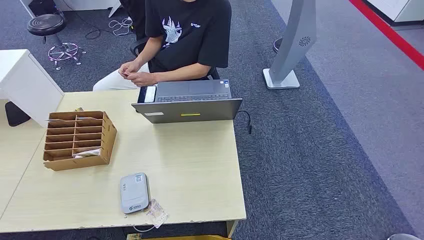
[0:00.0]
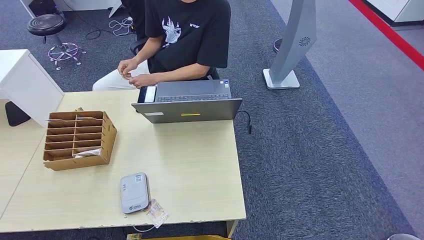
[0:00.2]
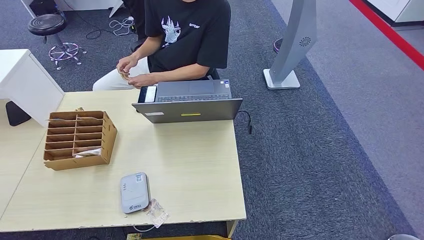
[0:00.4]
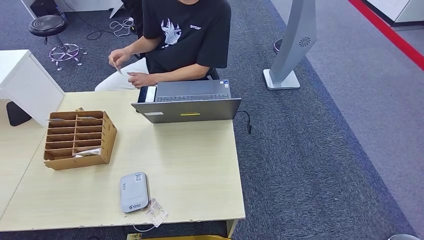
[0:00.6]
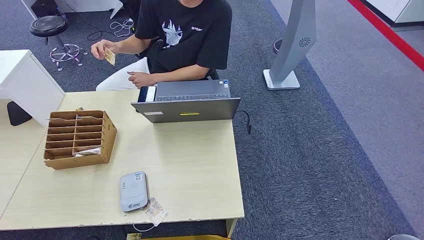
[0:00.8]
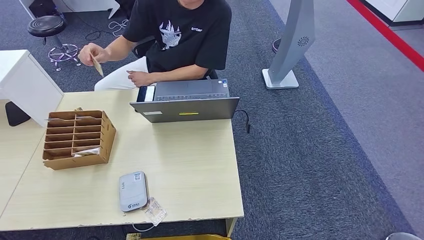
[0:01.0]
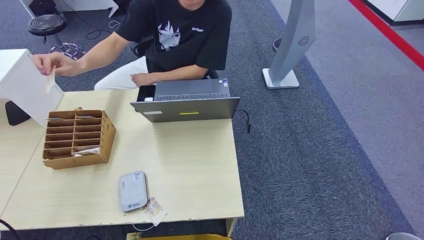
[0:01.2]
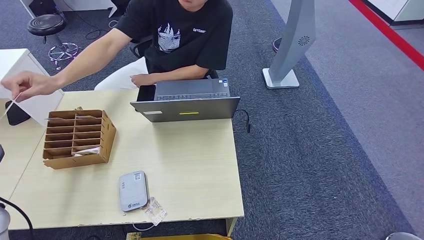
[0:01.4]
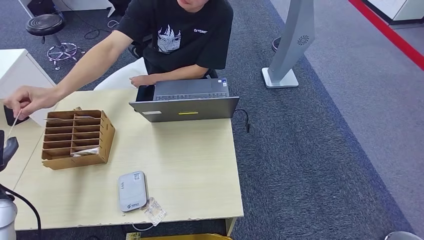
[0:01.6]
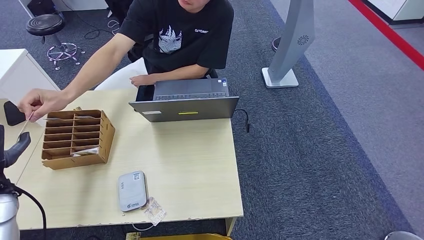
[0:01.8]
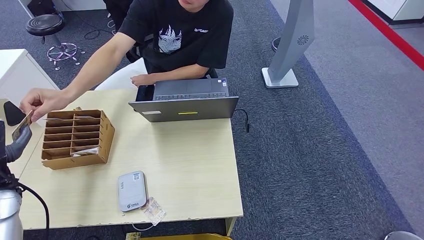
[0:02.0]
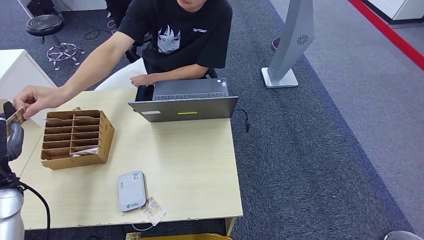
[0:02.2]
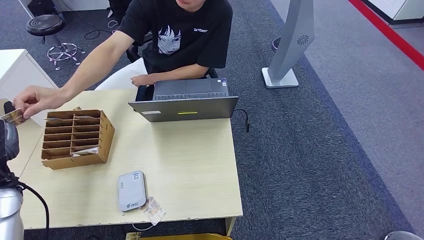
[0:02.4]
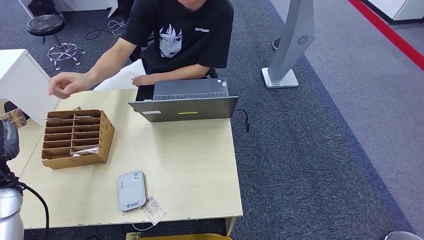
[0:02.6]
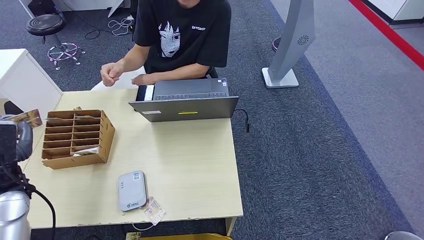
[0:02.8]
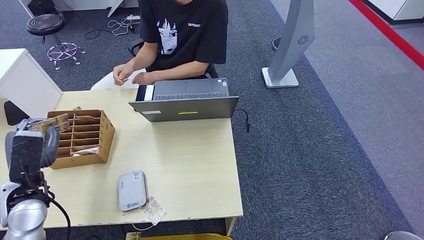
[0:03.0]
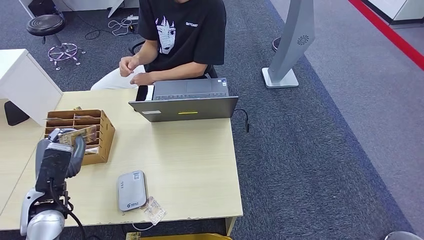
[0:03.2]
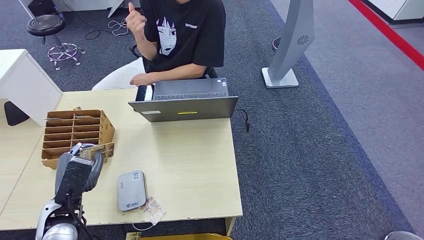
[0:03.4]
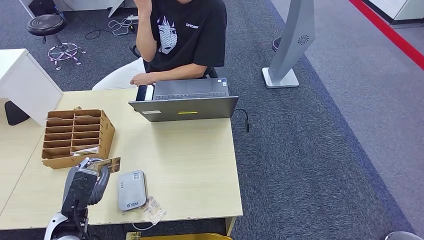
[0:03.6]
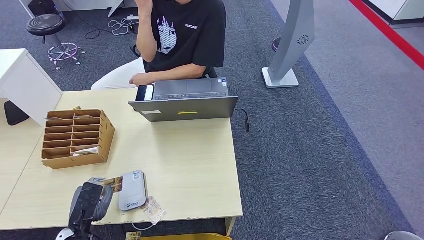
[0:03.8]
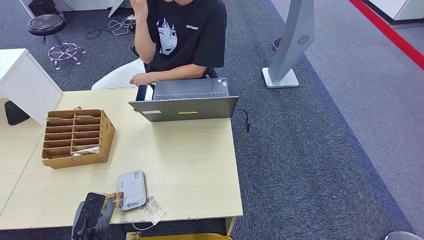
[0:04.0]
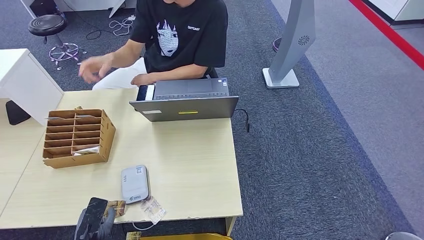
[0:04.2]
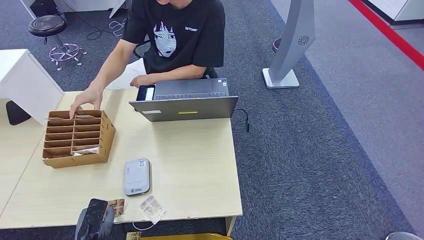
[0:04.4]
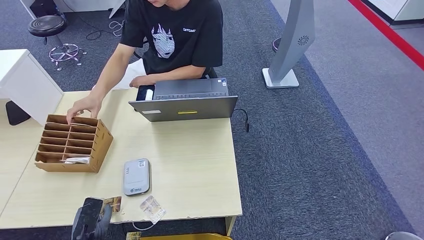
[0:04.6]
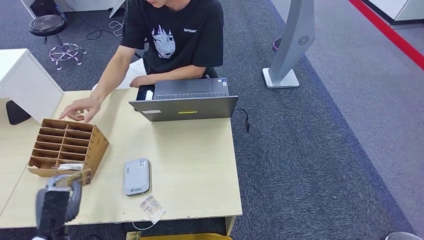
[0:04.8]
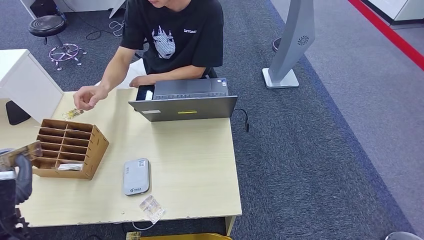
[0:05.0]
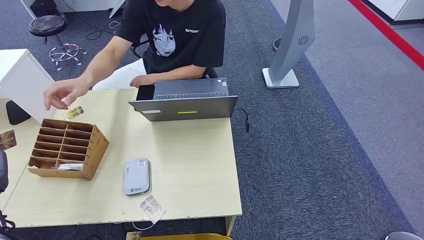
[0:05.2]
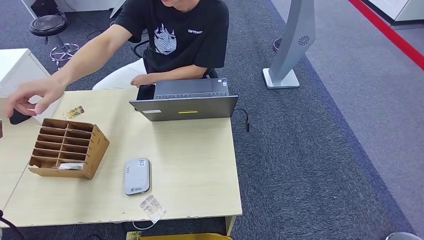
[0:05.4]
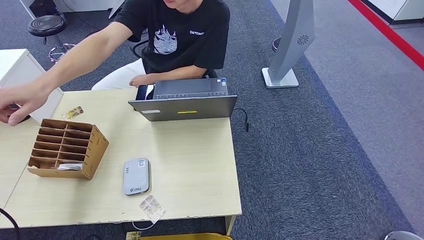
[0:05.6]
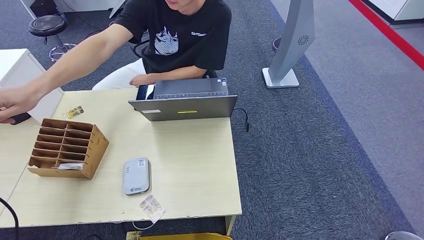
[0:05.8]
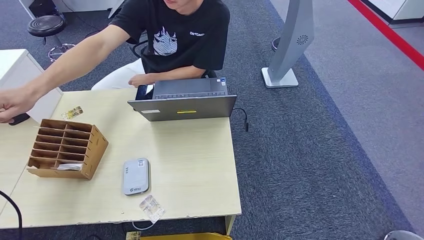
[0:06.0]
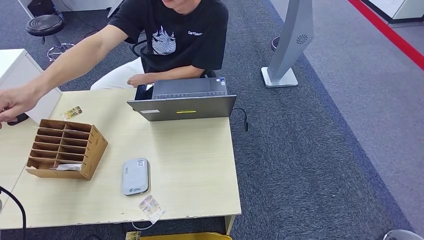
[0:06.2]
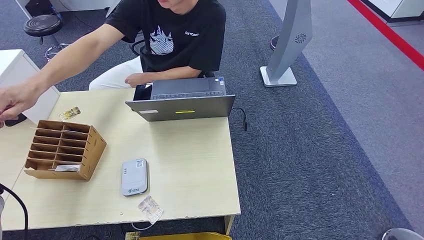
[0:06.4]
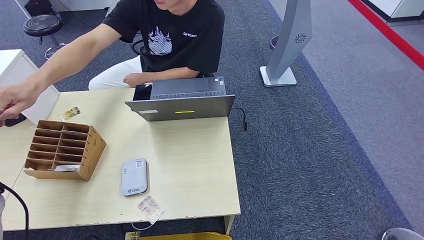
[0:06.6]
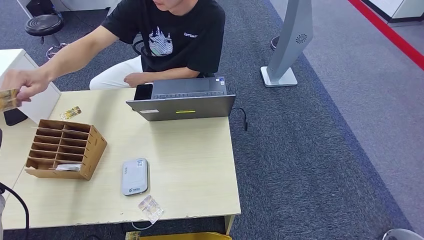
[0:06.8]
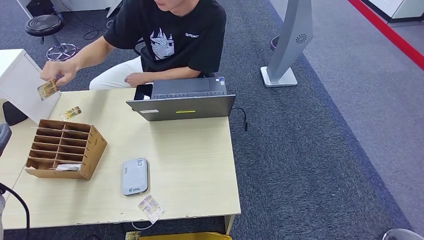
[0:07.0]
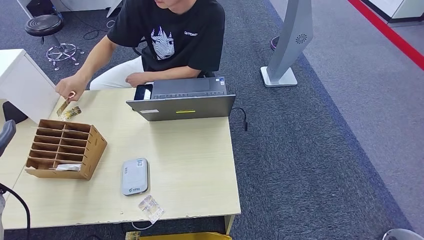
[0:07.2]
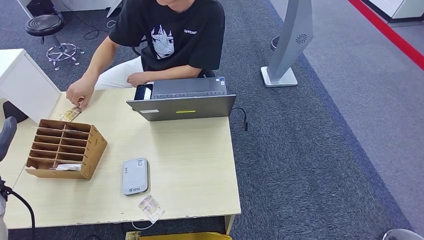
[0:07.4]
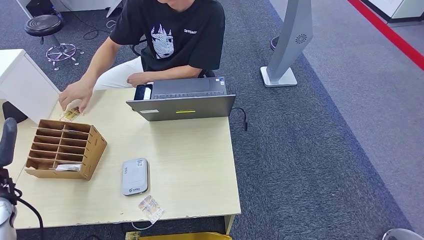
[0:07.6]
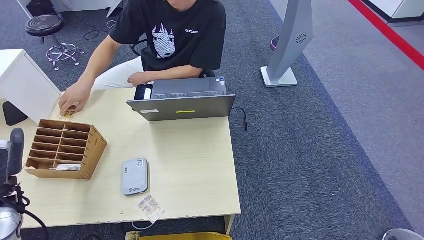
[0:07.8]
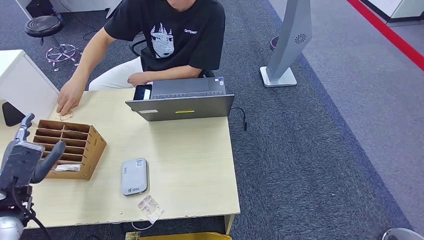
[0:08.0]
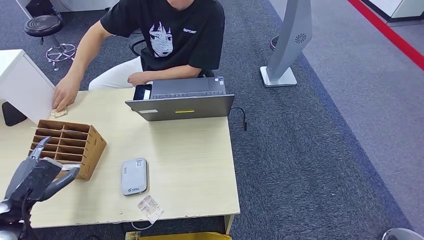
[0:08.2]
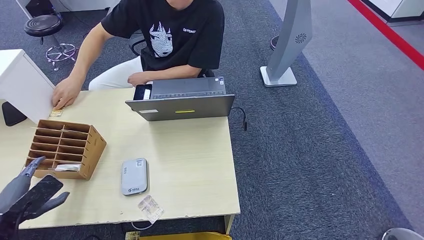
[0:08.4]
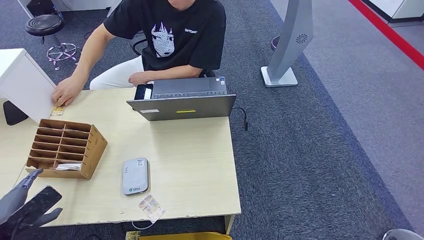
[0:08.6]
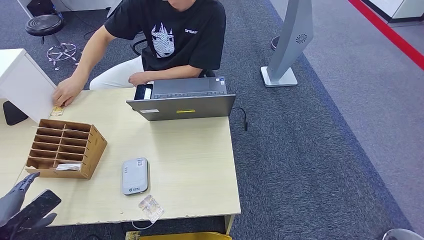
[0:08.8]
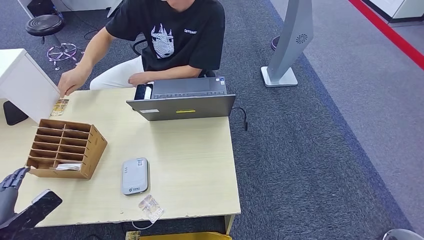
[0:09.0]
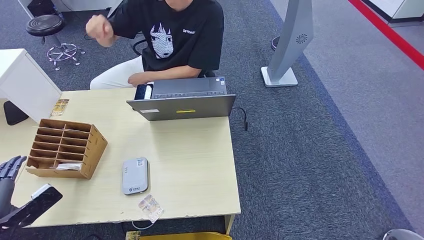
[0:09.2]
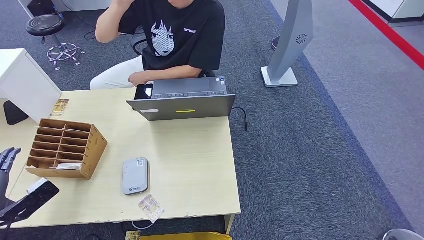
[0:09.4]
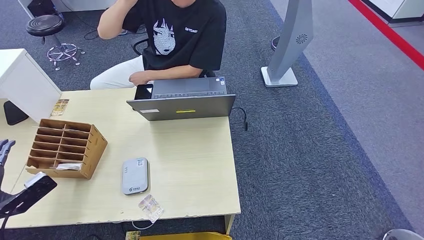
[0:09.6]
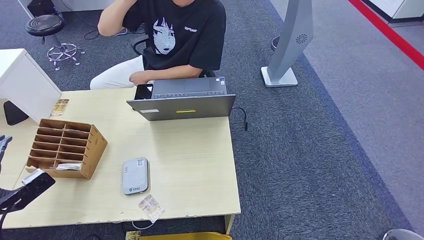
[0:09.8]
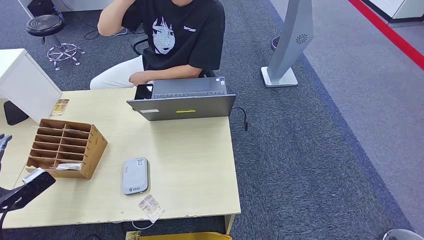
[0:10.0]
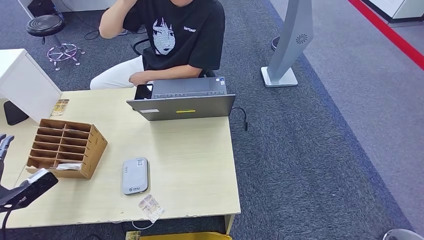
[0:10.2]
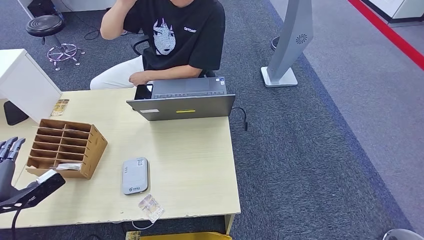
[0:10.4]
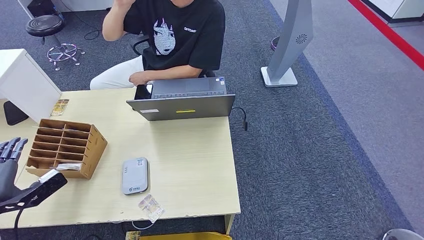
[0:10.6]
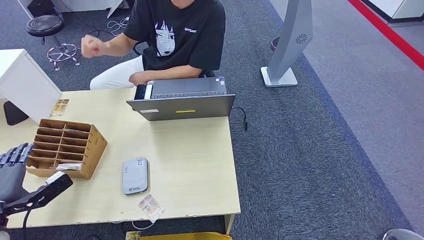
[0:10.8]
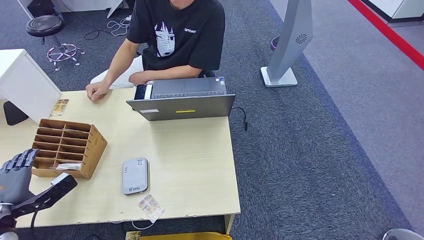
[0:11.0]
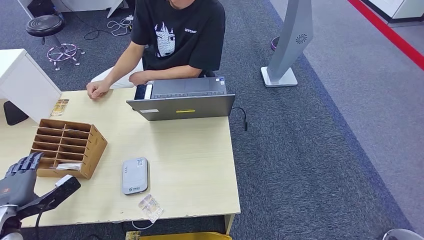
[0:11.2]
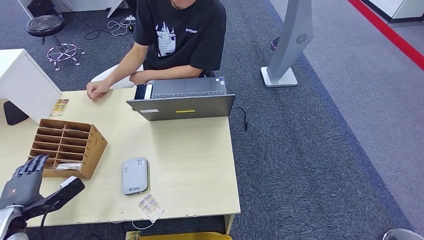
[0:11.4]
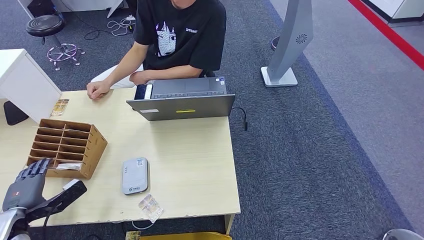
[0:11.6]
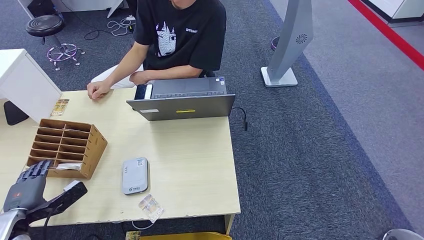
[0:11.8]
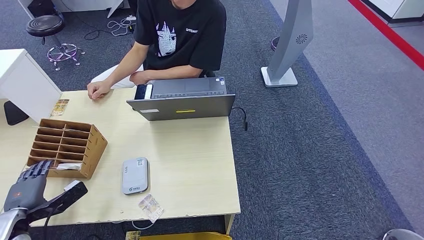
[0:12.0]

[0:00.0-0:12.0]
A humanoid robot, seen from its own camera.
Step, 0:00.0 to 0:02.8: Take the ID card from the person's hand.
Step, 0:03.0 to 0:03.8: Place the ID card on the card reader.
Step, 0:04.2 to 0:06.6: Hand the ID card to the person.
0:01.6 to 0:03.0: The left hand is displaced to the right by about 10 cm.
0:03.0 to 0:04.4: The left hand shifts about 20 cm downward and backward.
0:04.4 to 0:06.0: The left hand moves upward, to the left and forward, about 30 cm.
0:07.6 to 0:09.0: The left hand is displaced backward and downward by about 15 cm.
0:09.0 to 0:10.4: The left hand heads forward, covering roughly 5 cm.
0:10.4 to 0:12.0: The left hand goes roughly 10 cm downward.

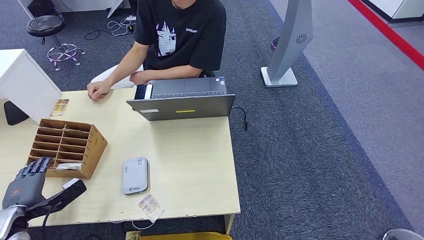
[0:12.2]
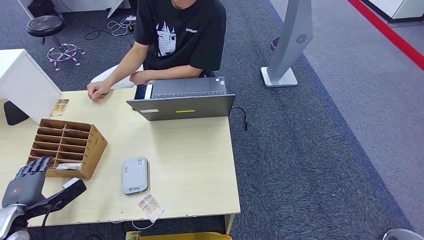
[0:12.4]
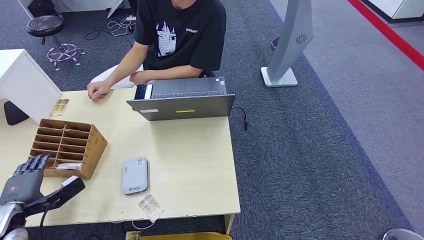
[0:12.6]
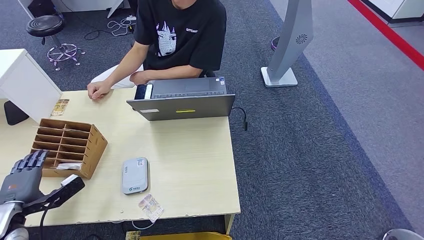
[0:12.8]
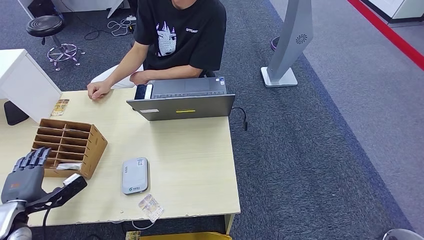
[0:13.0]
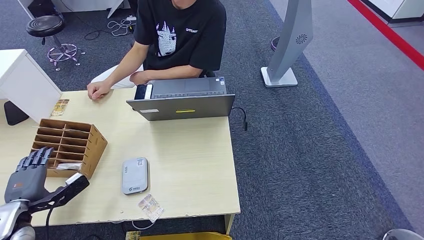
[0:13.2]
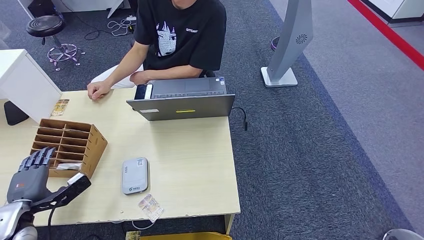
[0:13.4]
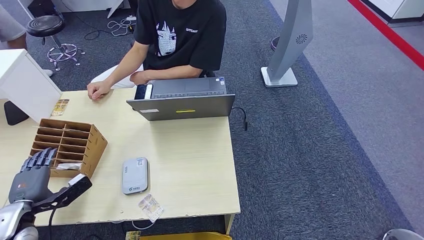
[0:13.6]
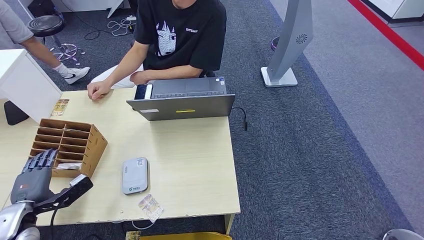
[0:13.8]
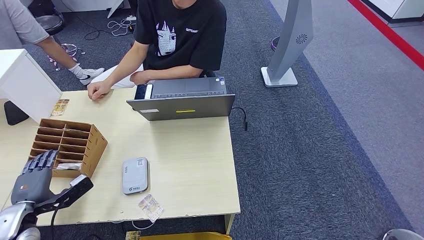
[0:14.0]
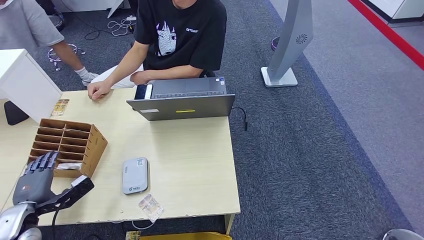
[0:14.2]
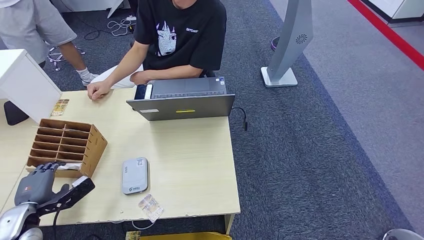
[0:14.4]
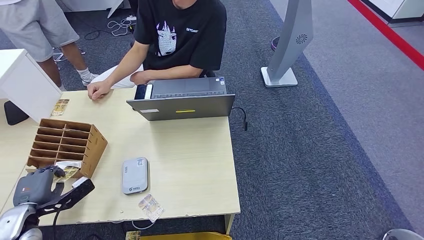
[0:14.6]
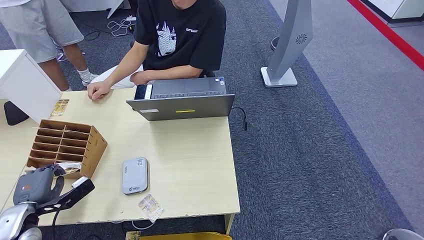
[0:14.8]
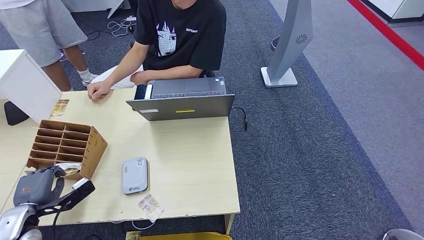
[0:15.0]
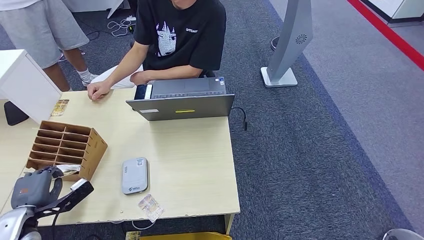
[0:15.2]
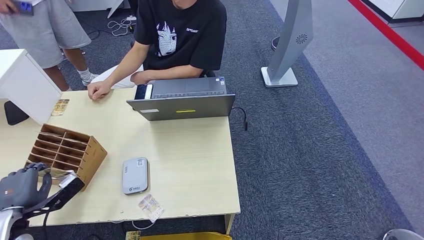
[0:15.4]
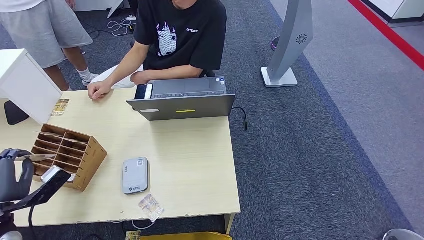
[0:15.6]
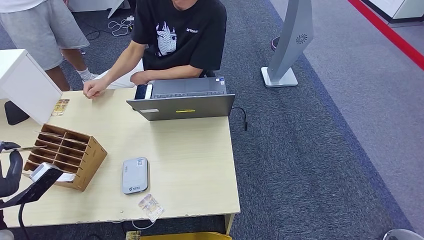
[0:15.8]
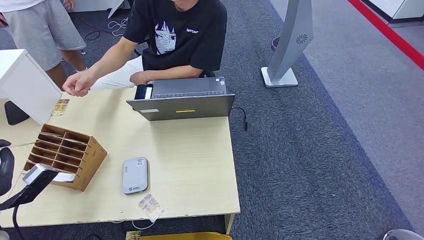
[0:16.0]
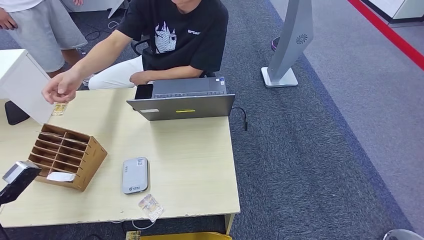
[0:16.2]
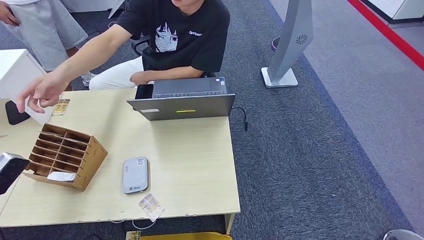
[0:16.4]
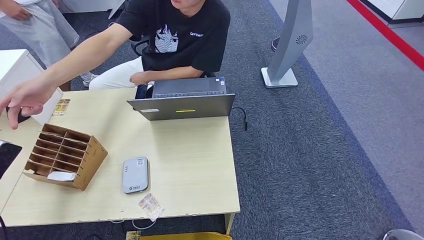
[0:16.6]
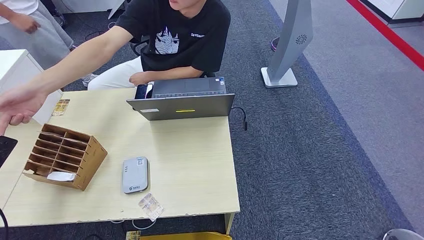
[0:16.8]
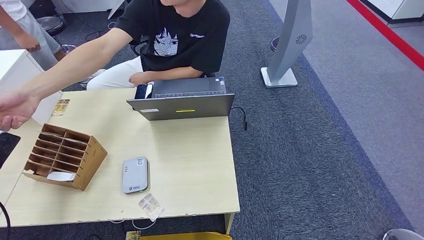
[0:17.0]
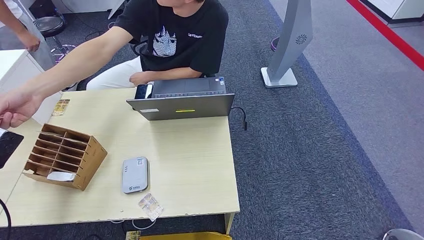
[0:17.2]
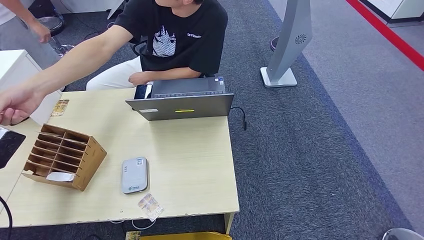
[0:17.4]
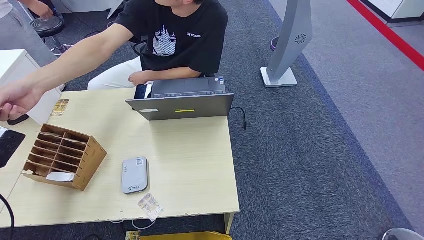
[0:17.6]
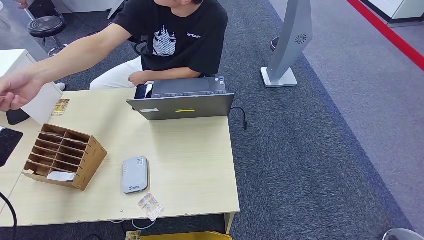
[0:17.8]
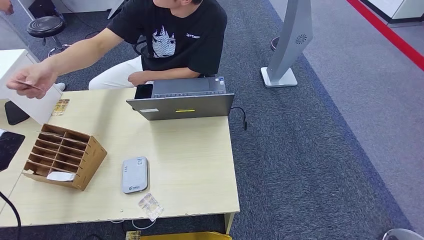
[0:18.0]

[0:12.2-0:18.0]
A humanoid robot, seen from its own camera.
Step, 0:12.2 to 0:15.4: Pick up the room key from the key card box.
Step, 0:15.6 to 0:18.0: Hand the room key to the person.
0:12.2 to 0:15.0: There are only small adjustments of the hands.
0:15.0 to 0:16.6: The left hand is displaced upward by approximately 15 cm.
0:16.6 to 0:18.0: There are only small adjustments of the hands.
